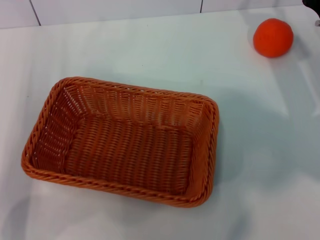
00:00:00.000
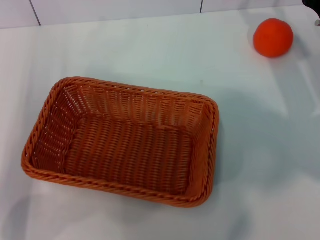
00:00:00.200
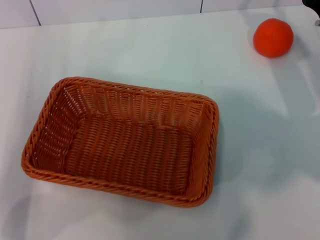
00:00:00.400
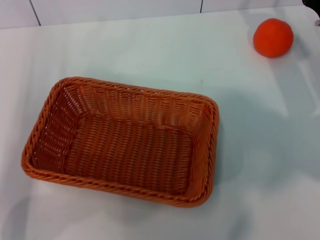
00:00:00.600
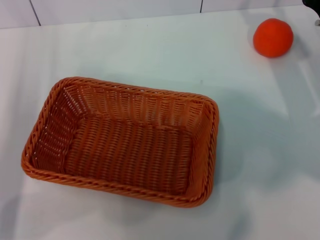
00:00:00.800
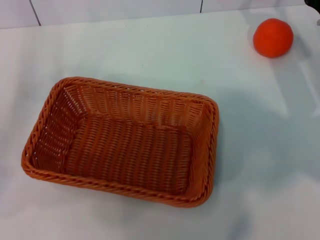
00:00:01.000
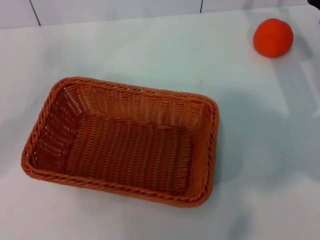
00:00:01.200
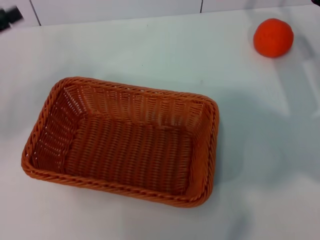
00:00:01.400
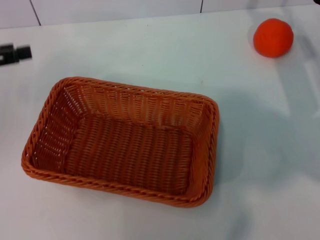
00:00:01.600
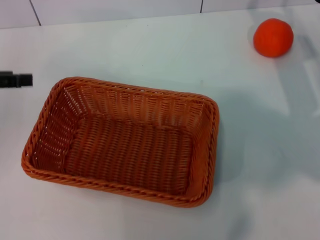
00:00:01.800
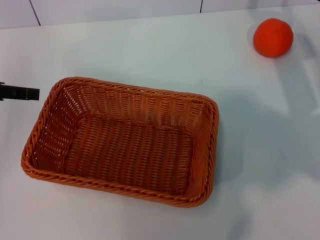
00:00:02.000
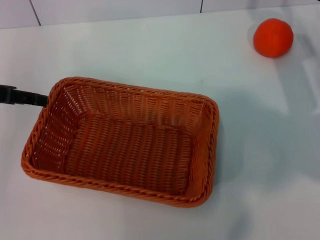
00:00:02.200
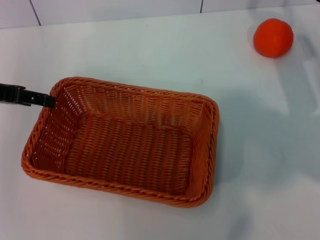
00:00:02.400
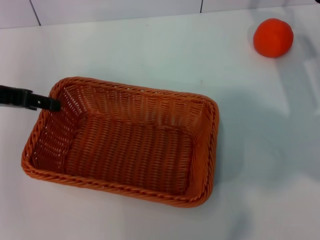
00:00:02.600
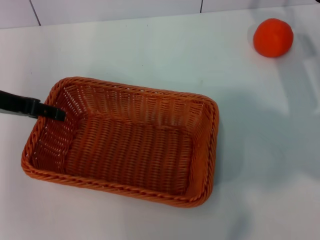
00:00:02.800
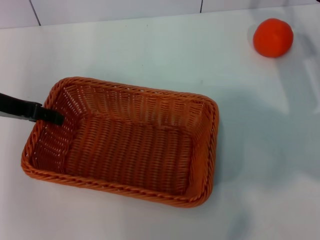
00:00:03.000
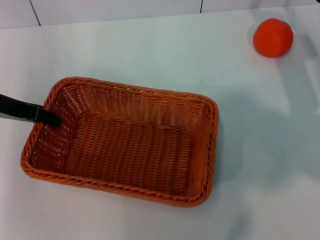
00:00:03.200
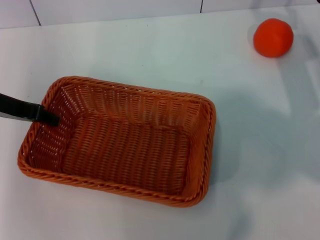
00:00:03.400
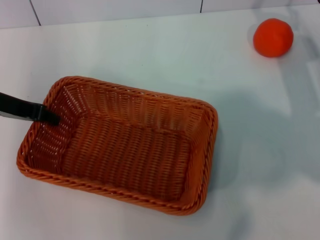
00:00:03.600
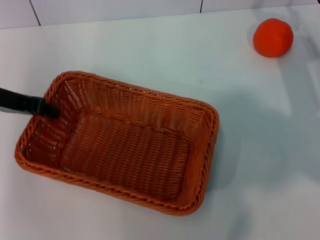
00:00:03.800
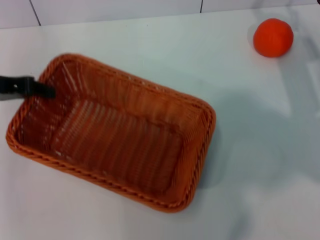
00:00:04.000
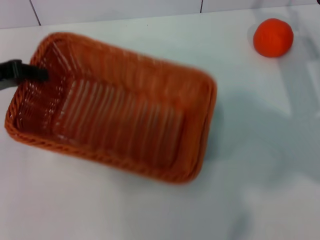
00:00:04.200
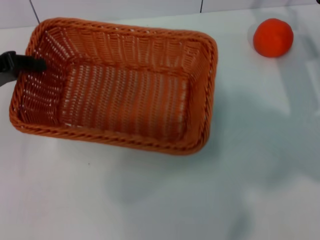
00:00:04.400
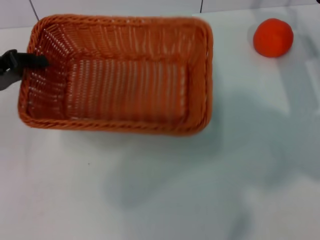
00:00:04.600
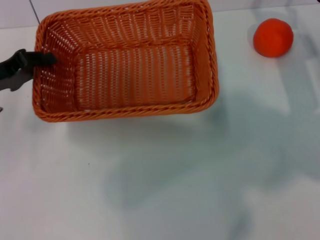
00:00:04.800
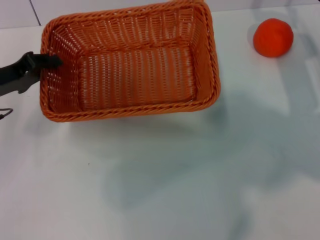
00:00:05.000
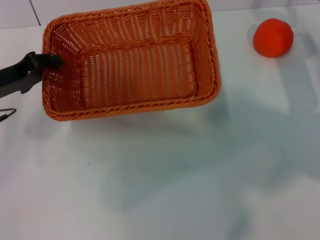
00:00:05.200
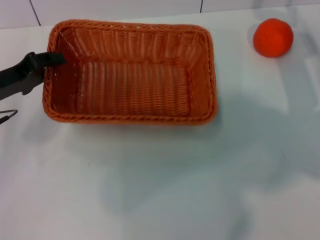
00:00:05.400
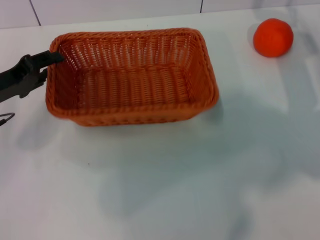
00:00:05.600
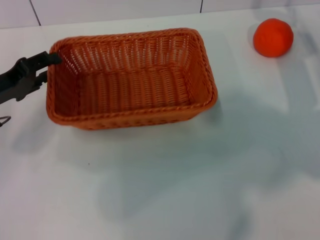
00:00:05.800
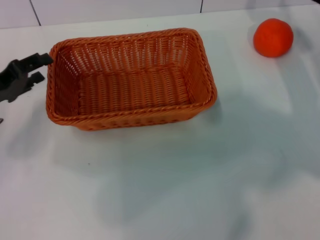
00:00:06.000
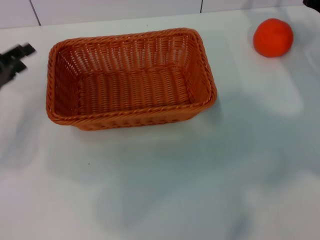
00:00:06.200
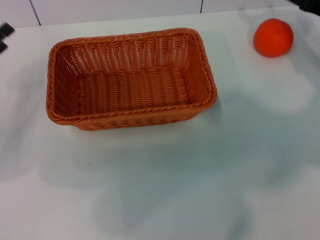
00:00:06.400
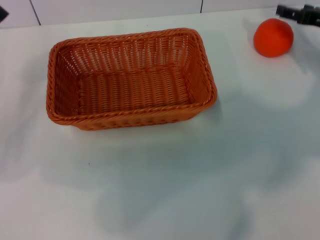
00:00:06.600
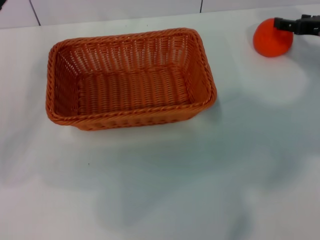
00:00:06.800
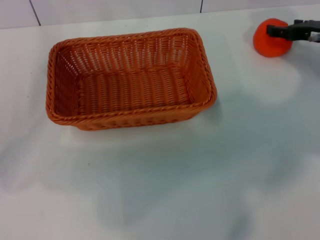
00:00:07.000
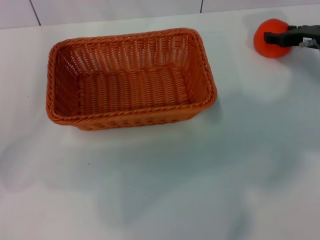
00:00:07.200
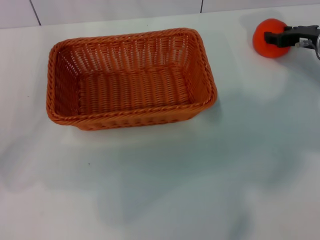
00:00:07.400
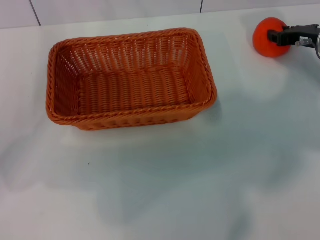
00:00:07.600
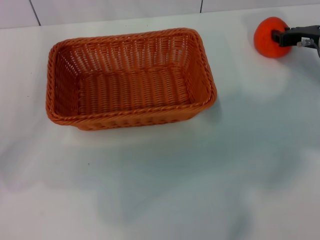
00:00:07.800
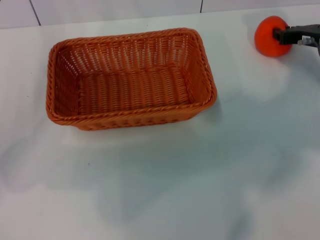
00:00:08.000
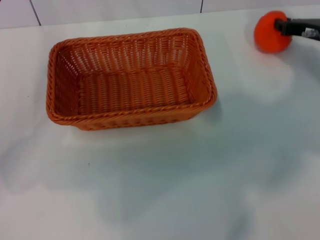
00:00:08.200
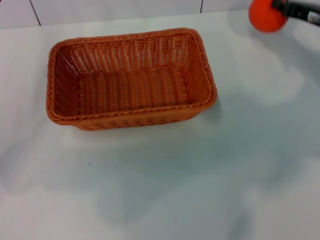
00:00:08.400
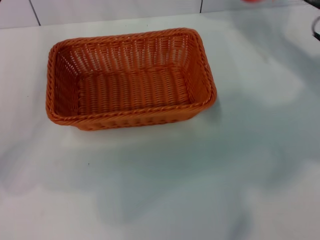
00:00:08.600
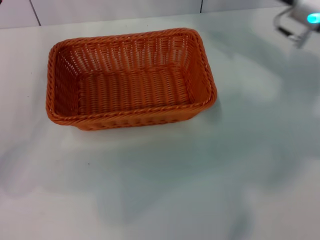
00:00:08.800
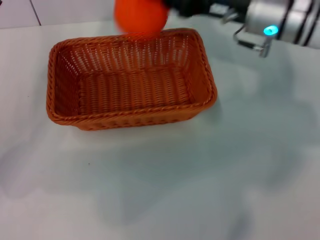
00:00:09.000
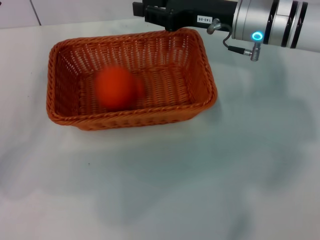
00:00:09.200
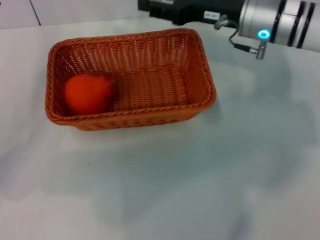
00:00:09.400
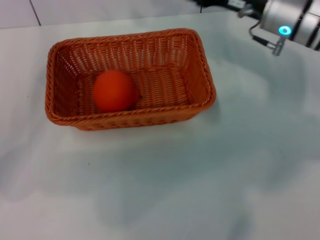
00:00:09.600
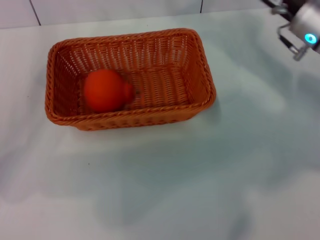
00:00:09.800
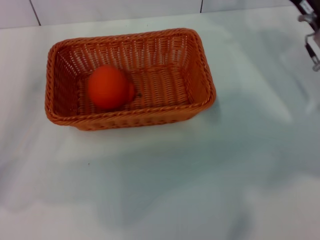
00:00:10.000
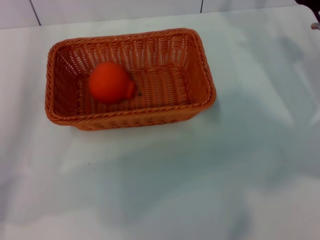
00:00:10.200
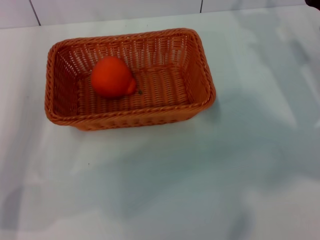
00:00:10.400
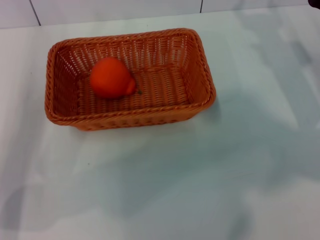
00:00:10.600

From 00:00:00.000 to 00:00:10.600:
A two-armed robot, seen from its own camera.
Task of the whole recording: the left gripper pick up the yellow basket and place it horizontally in the middle of the table, the right gripper pick up the orange and place it into the yellow basket.
Step, from 00:00:00.000 to 00:00:04.200: Pick up the light basket with the left gripper.
Step, from 00:00:04.400 to 00:00:06.000: Place the light basket in the center of view with the left gripper.
Step, from 00:00:06.400 to 00:00:08.200: Pick up the orange with the right gripper.
Step, from 00:00:08.400 to 00:00:09.000: Place the orange into the light basket with the right gripper.
From 00:00:00.000 to 00:00:01.600: The left gripper is displaced upward, to the left and forward by roughly 15 cm.
From 00:00:01.600 to 00:00:03.000: The left gripper travels to the right by approximately 5 cm.
From 00:00:03.000 to 00:00:04.600: The left gripper closes.
From 00:00:04.600 to 00:00:06.000: The left gripper opens.
From 00:00:06.000 to 00:00:07.600: The right gripper closes its fingers.
From 00:00:07.600 to 00:00:09.000: The right gripper heads to the left and upward, covering approximately 15 cm, and closes its fingers.
From 00:00:09.000 to 00:00:10.600: The right gripper moves to the right, downward and backward, approximately 15 cm, and opens up.

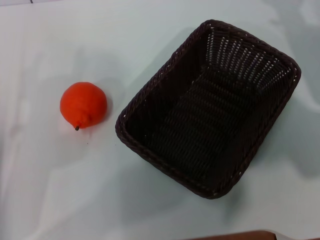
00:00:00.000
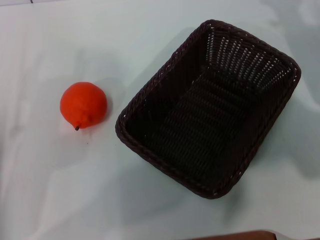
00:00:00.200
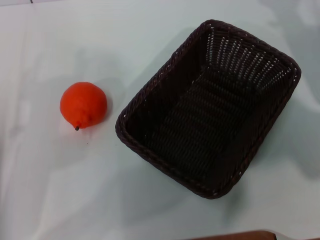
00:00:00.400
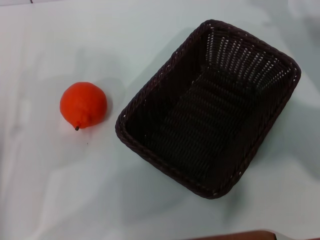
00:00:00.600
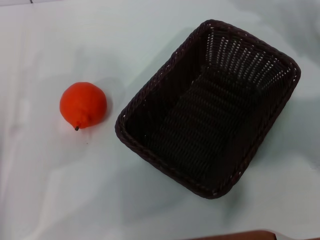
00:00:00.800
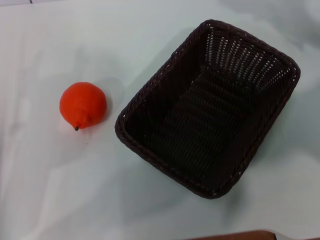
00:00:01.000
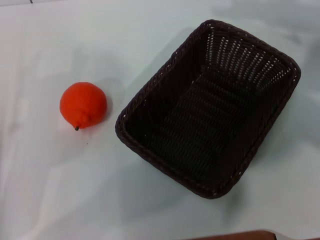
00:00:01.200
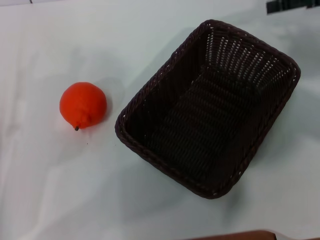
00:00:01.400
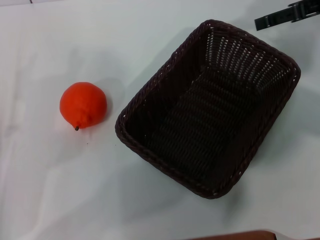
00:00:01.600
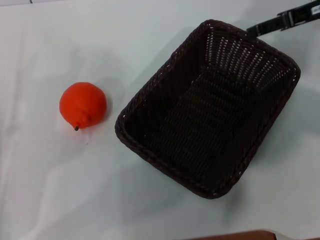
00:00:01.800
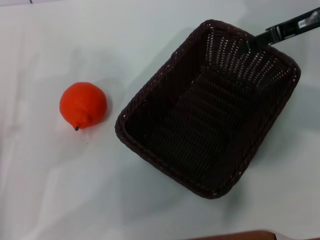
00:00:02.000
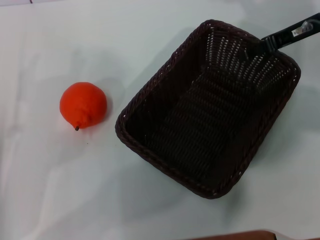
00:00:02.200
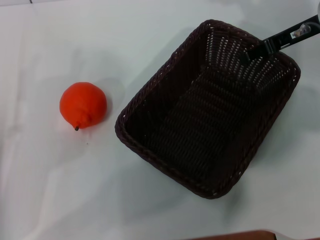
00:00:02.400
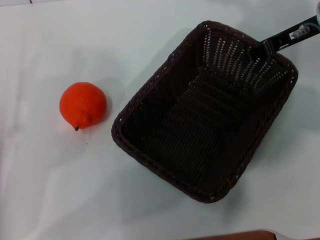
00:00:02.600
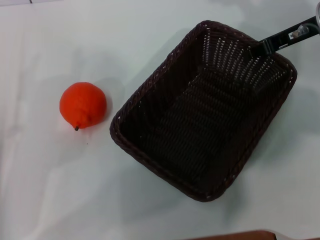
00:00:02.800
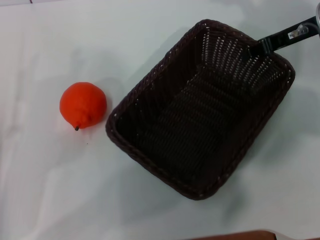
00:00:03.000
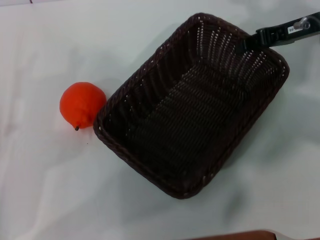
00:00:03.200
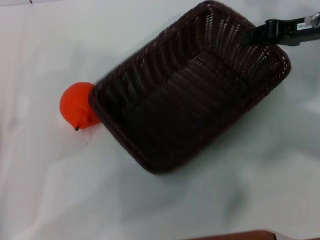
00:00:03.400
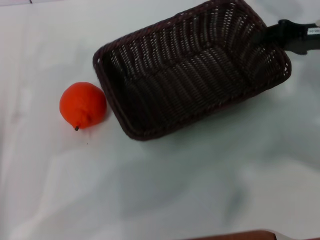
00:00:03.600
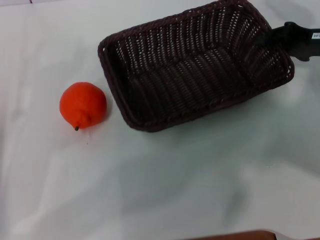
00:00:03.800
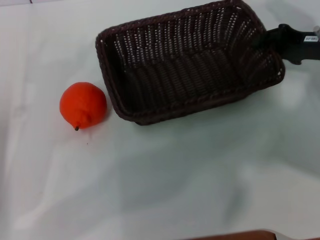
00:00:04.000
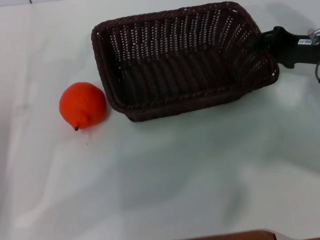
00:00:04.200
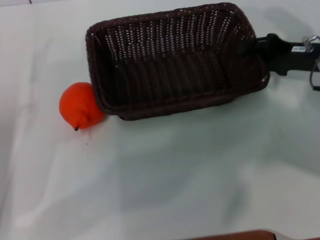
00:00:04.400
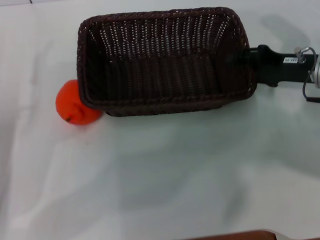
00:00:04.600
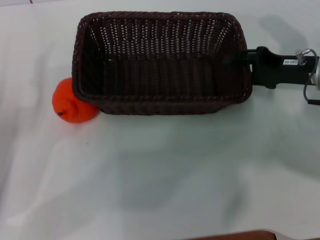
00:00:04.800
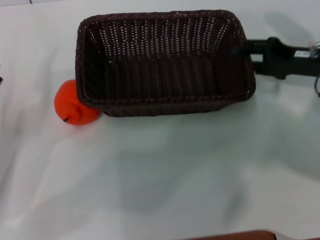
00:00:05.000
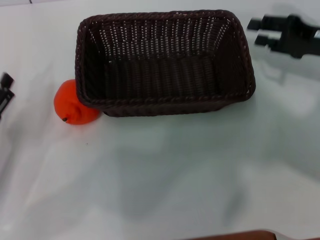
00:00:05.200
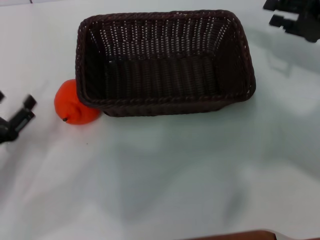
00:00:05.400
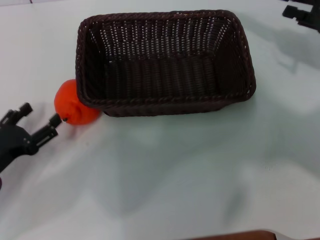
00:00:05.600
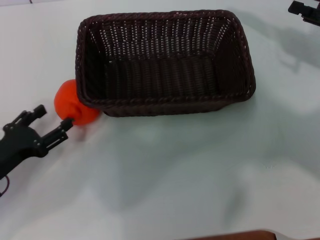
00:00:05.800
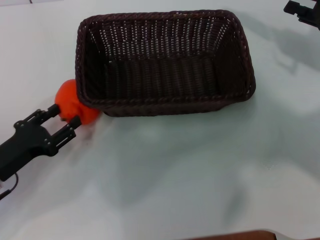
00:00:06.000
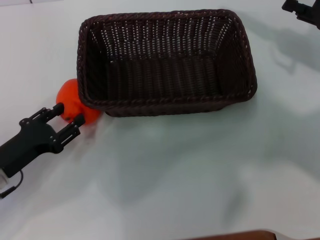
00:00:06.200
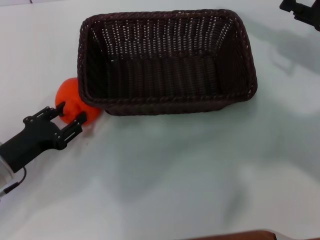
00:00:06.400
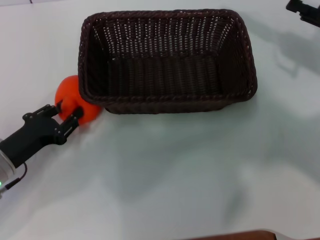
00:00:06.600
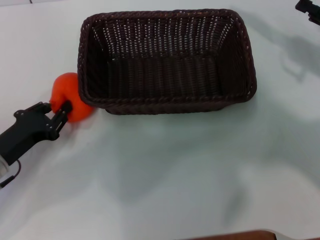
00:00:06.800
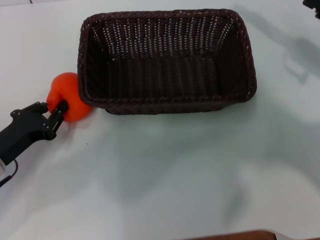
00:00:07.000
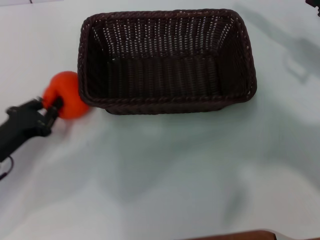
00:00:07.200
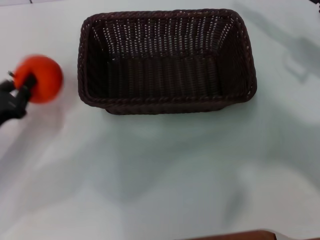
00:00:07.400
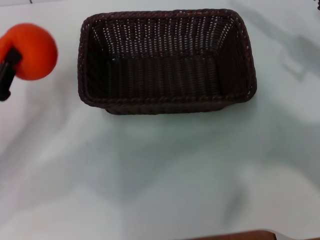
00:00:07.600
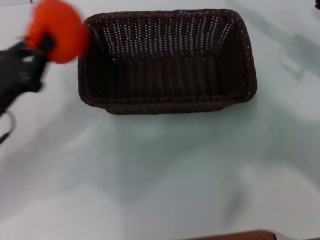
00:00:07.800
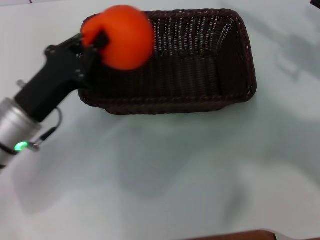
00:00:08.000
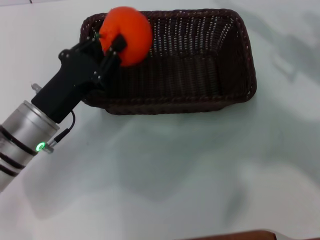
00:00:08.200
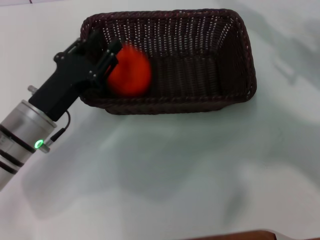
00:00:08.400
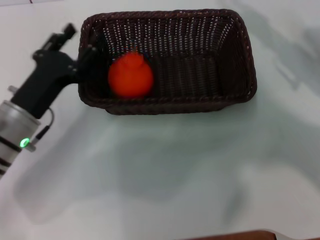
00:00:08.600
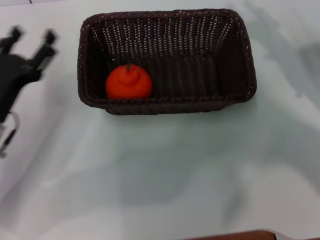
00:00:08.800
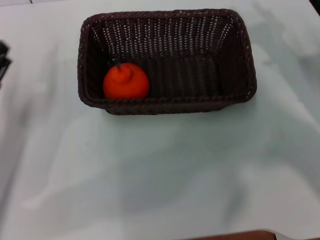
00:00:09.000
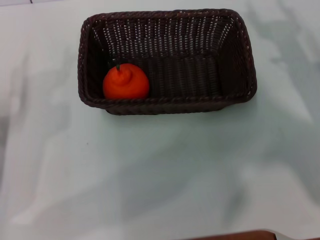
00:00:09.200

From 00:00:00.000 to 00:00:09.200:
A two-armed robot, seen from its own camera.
Task of the whole recording: the right gripper pick up the black basket and place it horizontally in the middle of the table, the left gripper pick up the orange and place it into the black basket.
Step, from 00:00:00.000 to 00:00:03.200: Pick up the dark basket with the right gripper.
Step, from 00:00:03.400 to 00:00:05.000: Place the dark basket in the center of view with the right gripper.
Step, from 00:00:05.200 to 00:00:07.400: Pick up the orange with the left gripper.
Step, from 00:00:07.600 to 00:00:08.400: Place the orange into the dark basket with the left gripper.
From 00:00:00.000 to 00:00:01.600: The right gripper travels upward by roughly 10 cm.
From 00:00:01.600 to 00:00:03.000: The right gripper ends up about 5 cm from where it was, and closes its fingers.
From 00:00:03.000 to 00:00:04.600: The right gripper goes roughly 10 cm downward and backward.
From 00:00:04.600 to 00:00:06.200: The right gripper is displaced to the right and upward by about 10 cm, and opens.
From 00:00:06.200 to 00:00:07.600: The left gripper ends up some 5 cm from where it was, and closes its fingers.
From 00:00:07.600 to 00:00:09.200: The left gripper goes to the right and returns, about 10 cm each way, and opens; the right gripper heads downward, covering some 5 cm.
